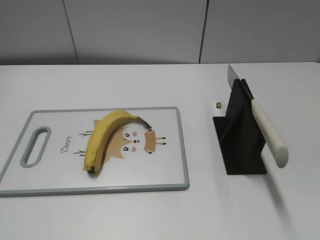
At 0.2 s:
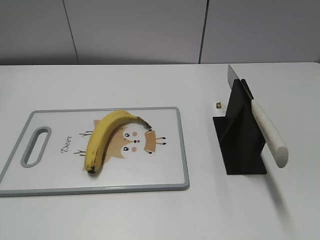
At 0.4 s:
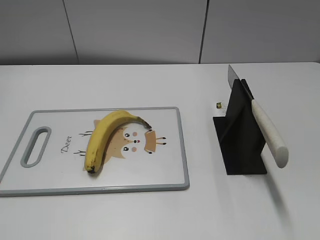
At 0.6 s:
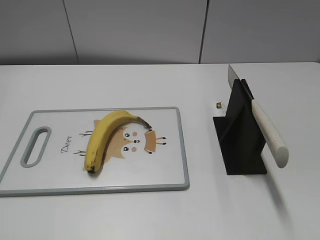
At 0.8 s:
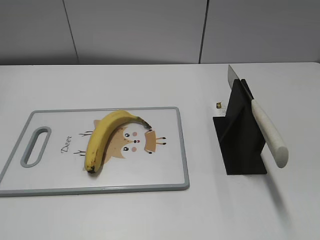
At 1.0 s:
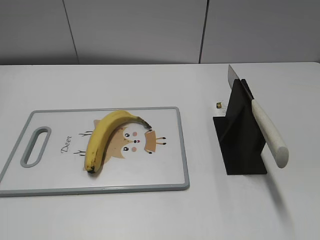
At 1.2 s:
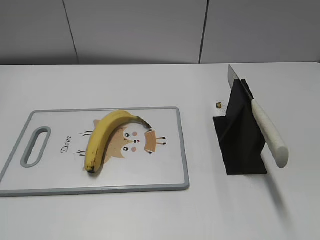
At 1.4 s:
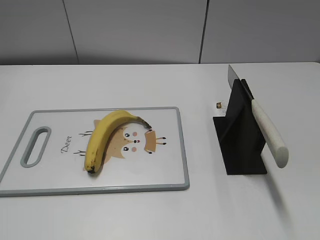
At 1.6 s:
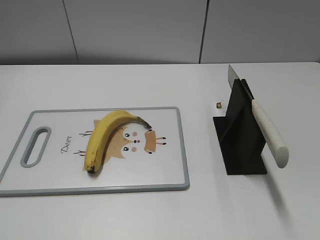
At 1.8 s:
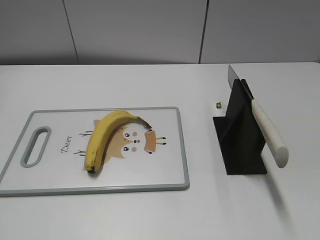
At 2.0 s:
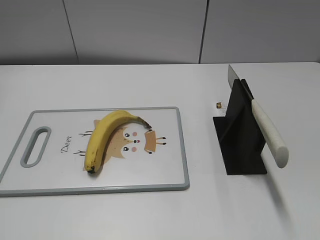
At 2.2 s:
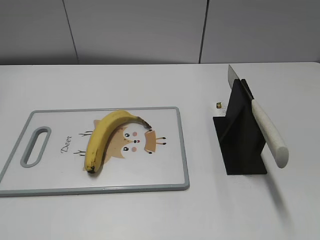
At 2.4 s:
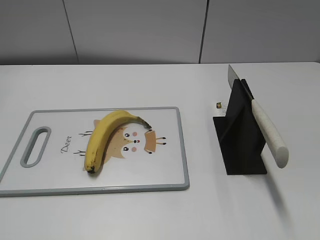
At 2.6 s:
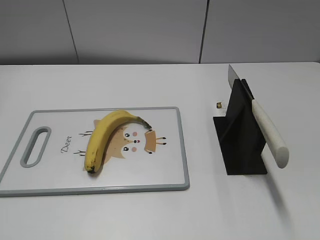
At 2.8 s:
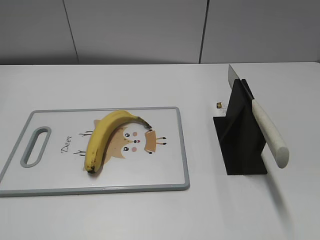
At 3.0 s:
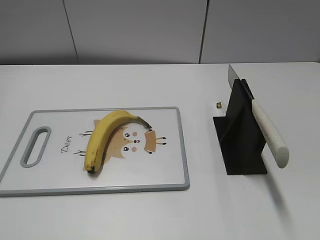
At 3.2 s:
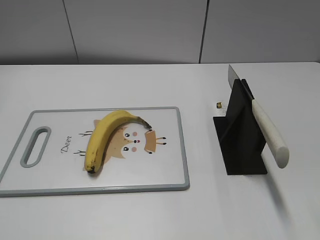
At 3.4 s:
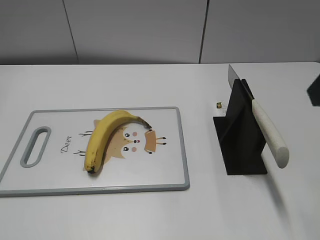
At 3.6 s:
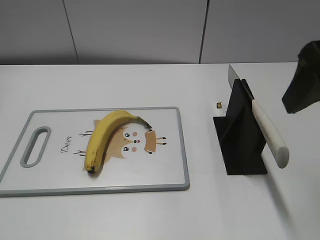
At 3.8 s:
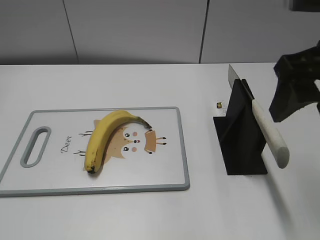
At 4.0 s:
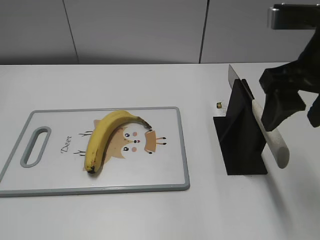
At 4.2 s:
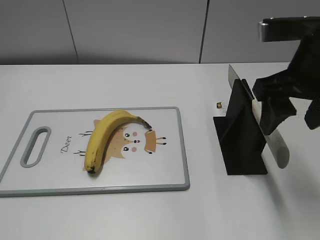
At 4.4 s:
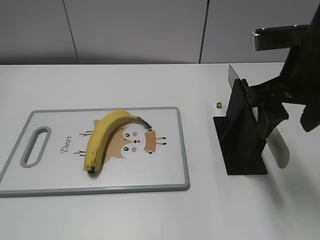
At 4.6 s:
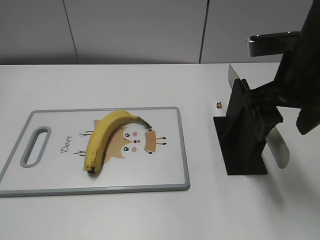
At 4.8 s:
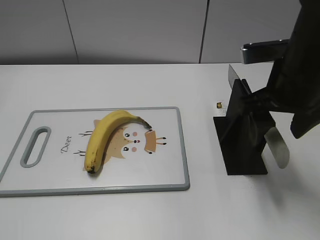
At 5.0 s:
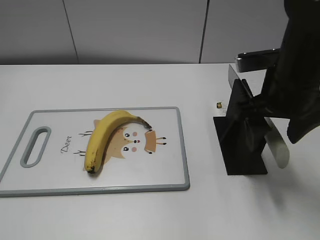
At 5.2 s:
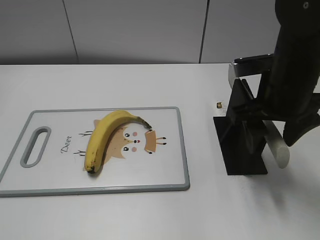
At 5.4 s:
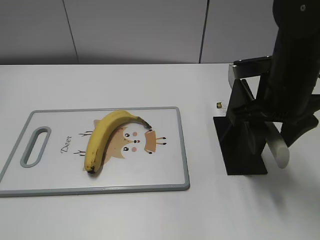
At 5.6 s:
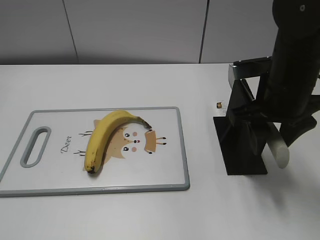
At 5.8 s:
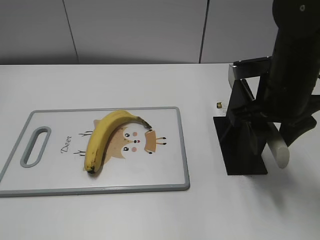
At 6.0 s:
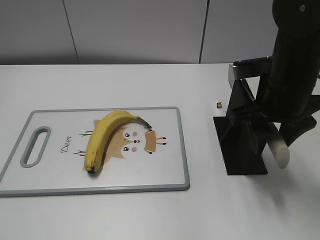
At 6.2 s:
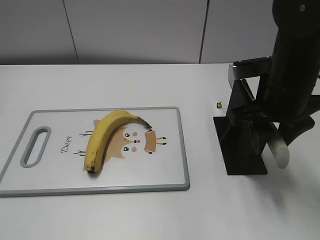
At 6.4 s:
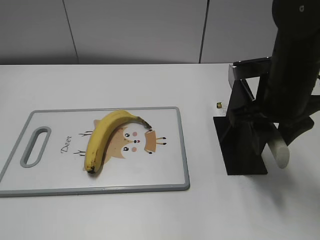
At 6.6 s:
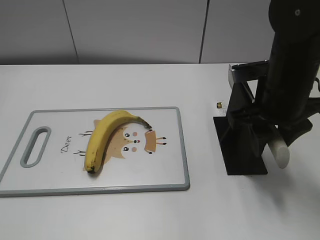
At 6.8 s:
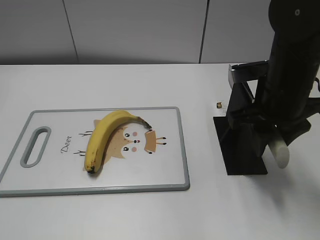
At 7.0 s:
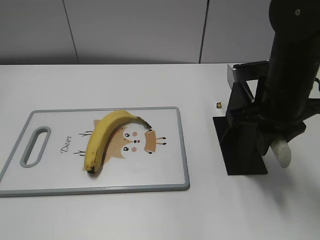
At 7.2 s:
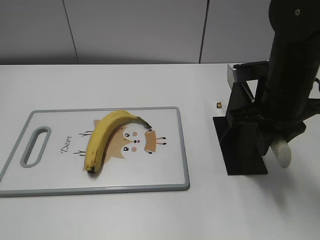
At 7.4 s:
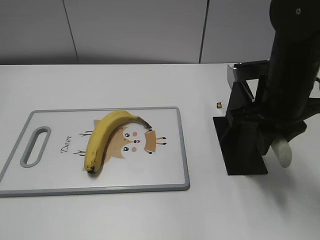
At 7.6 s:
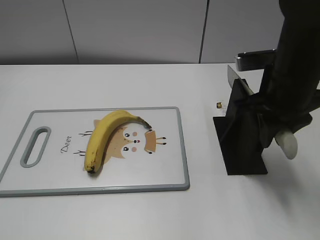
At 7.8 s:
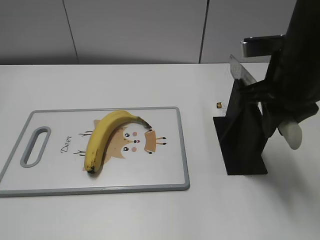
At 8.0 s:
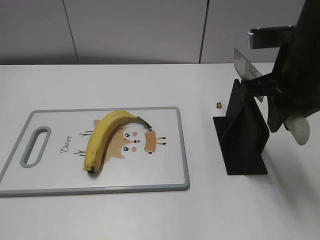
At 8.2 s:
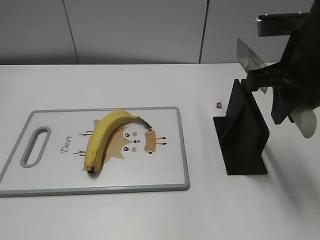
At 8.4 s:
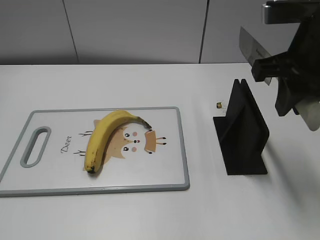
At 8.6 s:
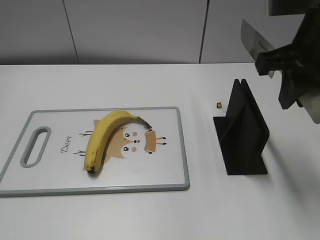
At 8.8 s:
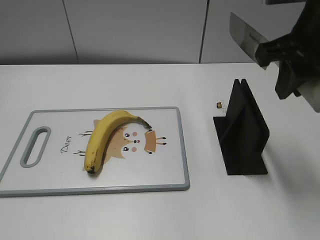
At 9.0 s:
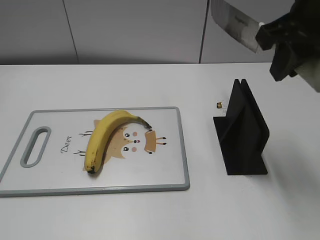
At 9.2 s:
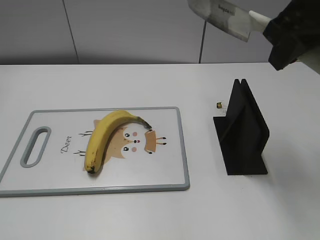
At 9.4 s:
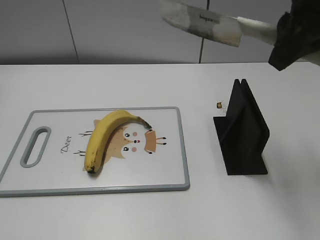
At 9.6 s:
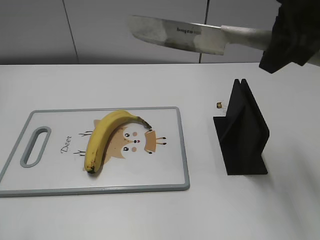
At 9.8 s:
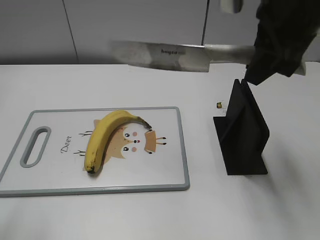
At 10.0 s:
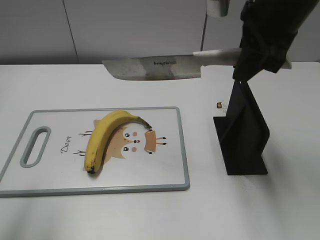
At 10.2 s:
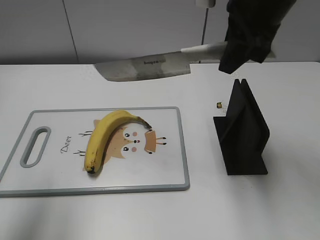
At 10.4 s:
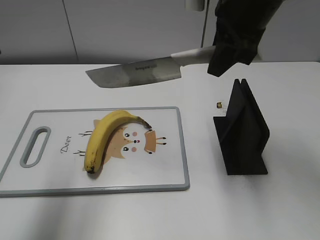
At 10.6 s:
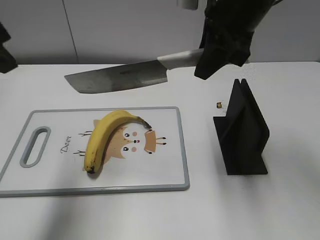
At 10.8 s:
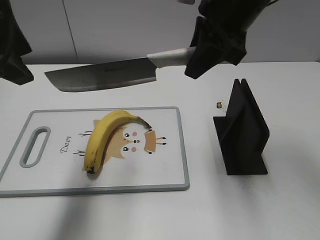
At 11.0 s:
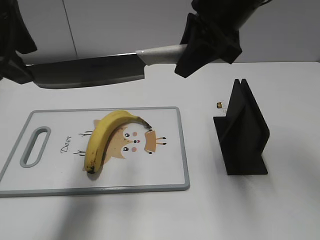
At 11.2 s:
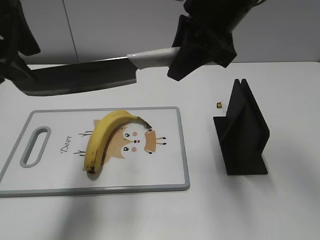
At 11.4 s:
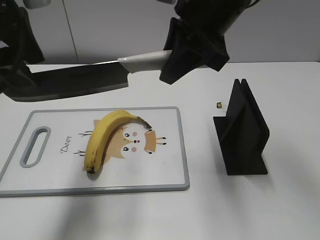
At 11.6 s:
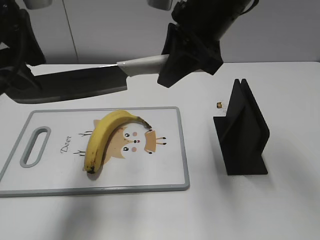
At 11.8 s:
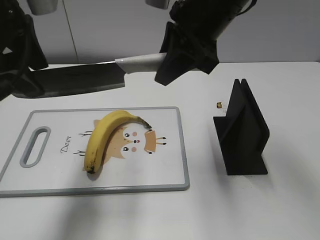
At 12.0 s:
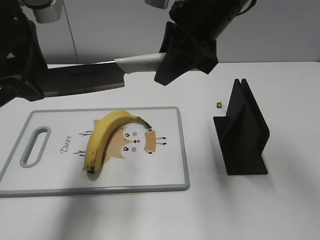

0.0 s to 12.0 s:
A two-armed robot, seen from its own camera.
Task of the whole recording: cut banana.
Step, 0.0 to 8.4 s: Grab the knife handle with your right hand.
3.0 to 4.4 s: The right gripper goes approximately 20 cm forward, downward and to the left.
4.4 to 6.0 s: The right gripper moves downward, roughly 5 cm, and closes.
6.0 to 7.6 s: The right gripper closes its fingers.
7.6 to 9.0 s: The right gripper goes about 10 cm upward.
9.0 to 10.4 s: The left gripper shifts roughly 25 cm forward and upward; the right gripper heads forward and to the left, covering roughly 10 cm.
10.4 to 12.0 s: The left gripper heads downward, to the right and forward, covering some 10 cm, while the right gripper heads to the left, covering roughly 5 cm.

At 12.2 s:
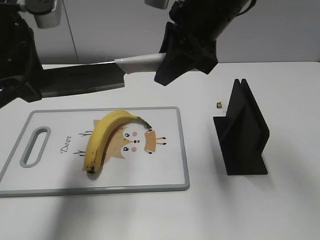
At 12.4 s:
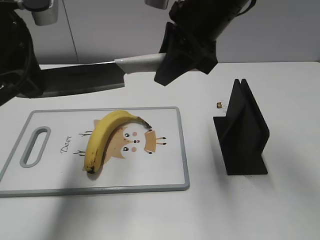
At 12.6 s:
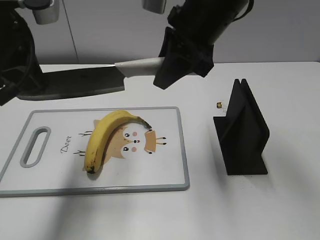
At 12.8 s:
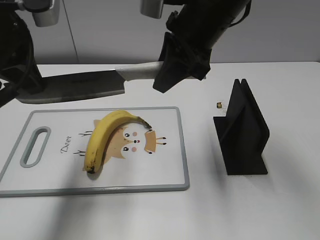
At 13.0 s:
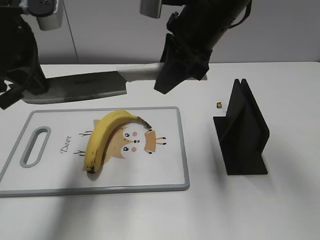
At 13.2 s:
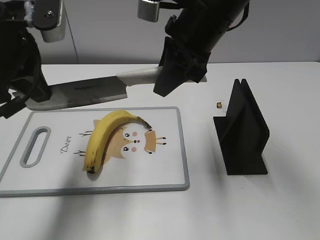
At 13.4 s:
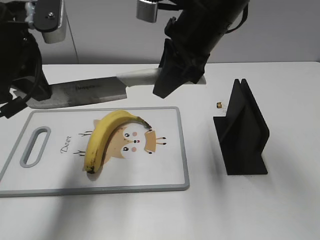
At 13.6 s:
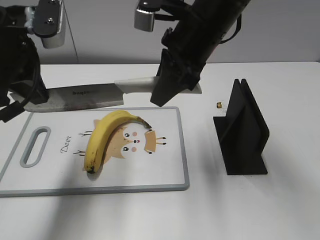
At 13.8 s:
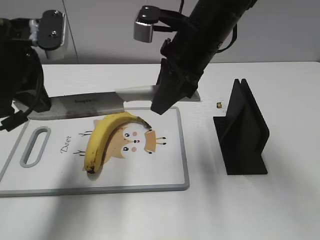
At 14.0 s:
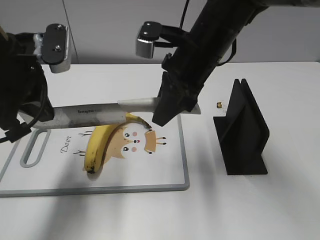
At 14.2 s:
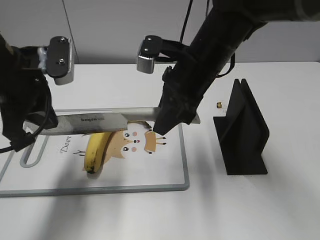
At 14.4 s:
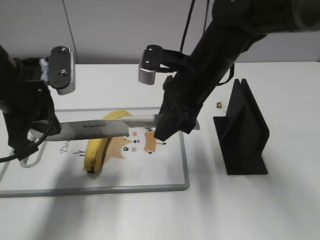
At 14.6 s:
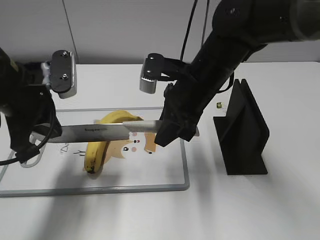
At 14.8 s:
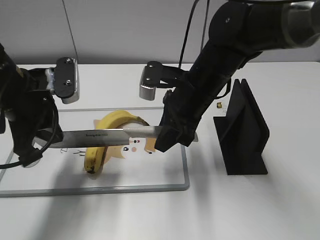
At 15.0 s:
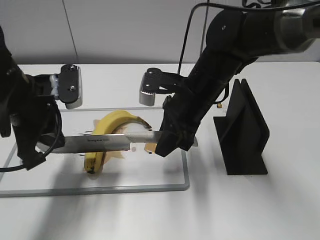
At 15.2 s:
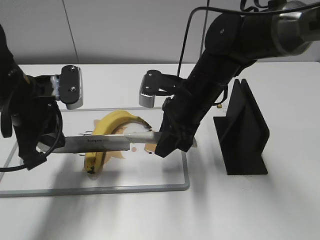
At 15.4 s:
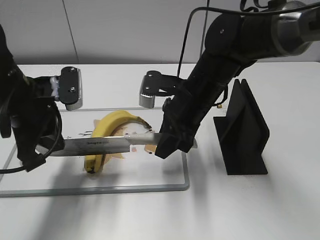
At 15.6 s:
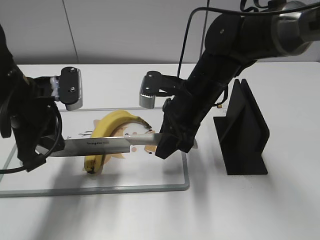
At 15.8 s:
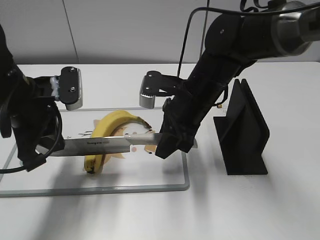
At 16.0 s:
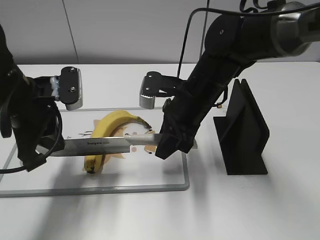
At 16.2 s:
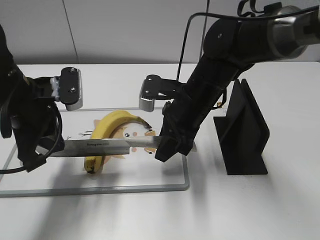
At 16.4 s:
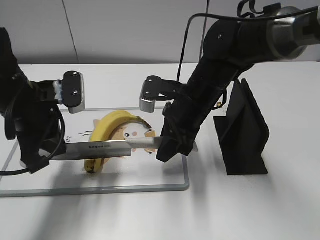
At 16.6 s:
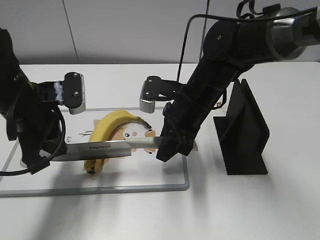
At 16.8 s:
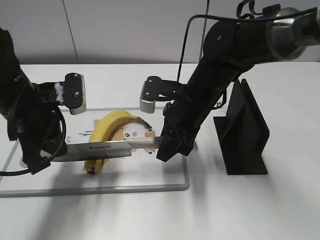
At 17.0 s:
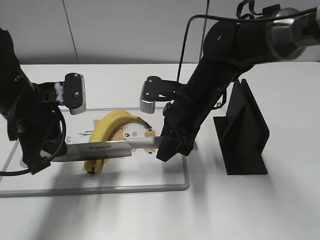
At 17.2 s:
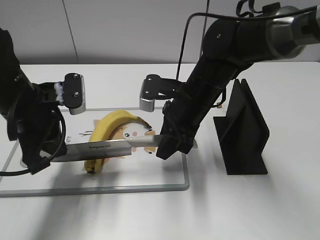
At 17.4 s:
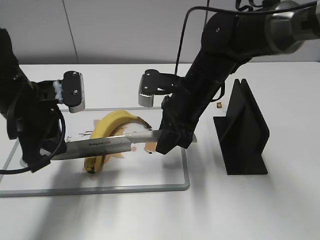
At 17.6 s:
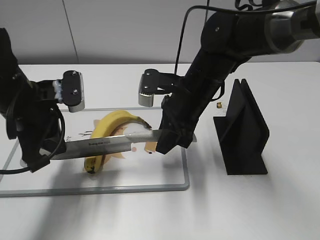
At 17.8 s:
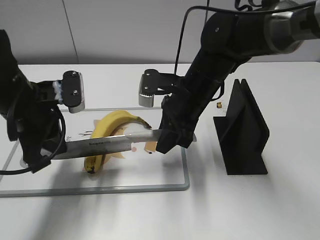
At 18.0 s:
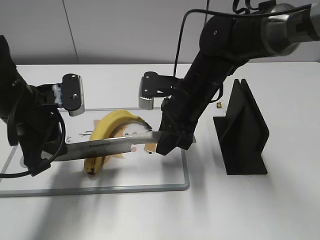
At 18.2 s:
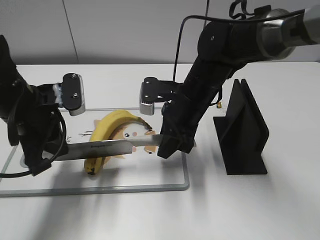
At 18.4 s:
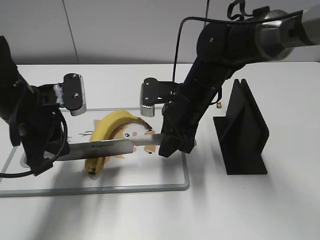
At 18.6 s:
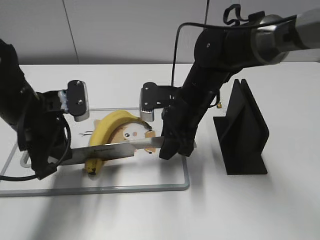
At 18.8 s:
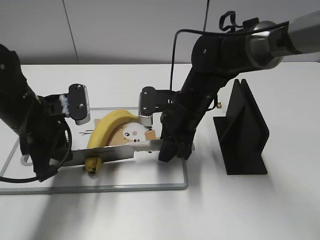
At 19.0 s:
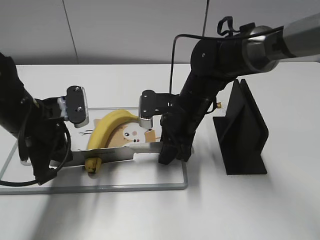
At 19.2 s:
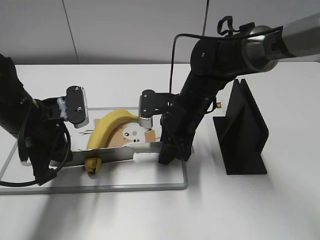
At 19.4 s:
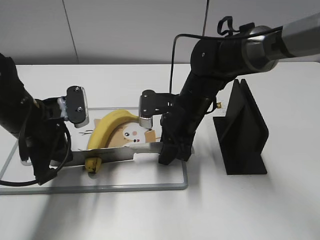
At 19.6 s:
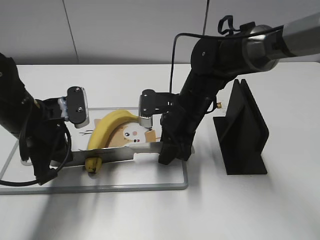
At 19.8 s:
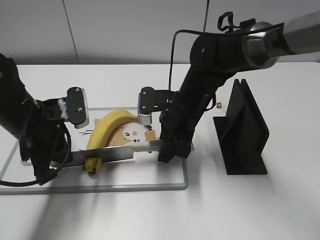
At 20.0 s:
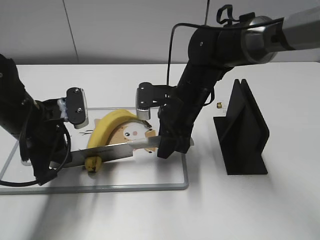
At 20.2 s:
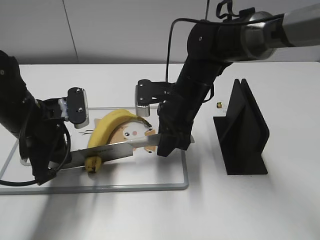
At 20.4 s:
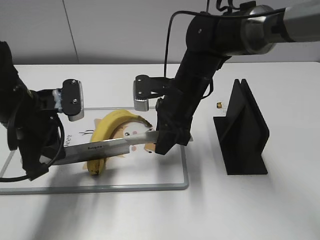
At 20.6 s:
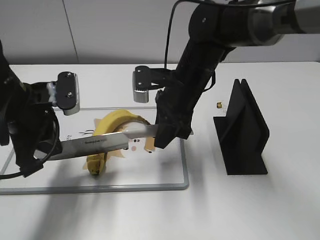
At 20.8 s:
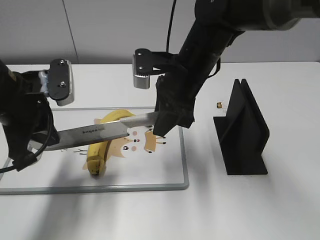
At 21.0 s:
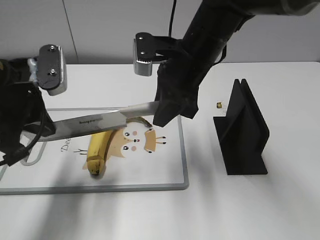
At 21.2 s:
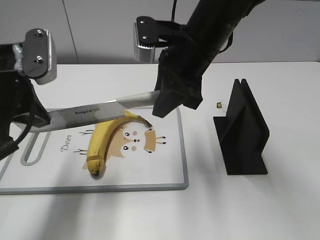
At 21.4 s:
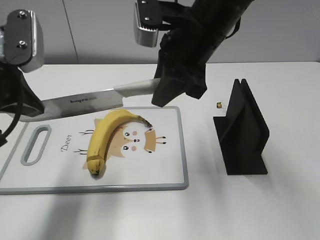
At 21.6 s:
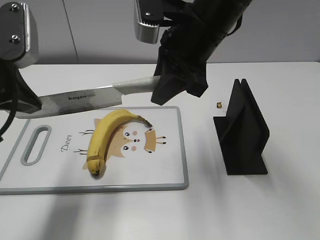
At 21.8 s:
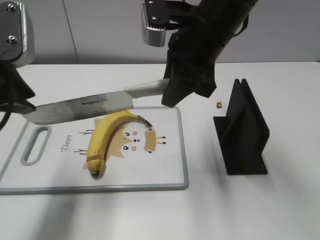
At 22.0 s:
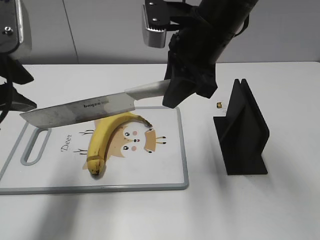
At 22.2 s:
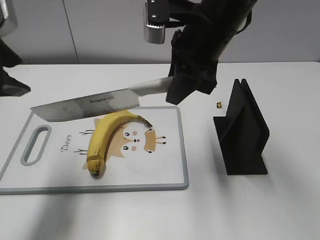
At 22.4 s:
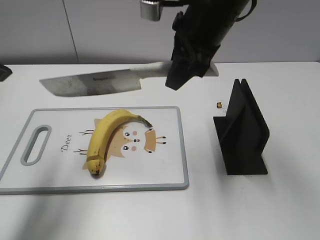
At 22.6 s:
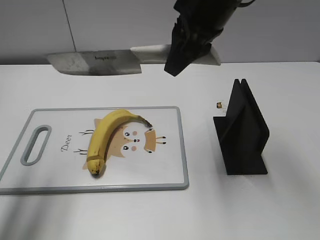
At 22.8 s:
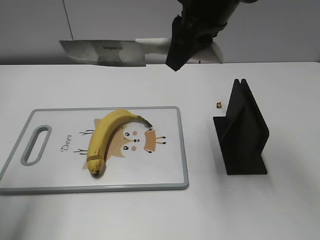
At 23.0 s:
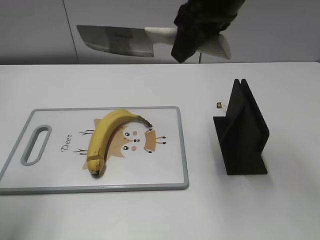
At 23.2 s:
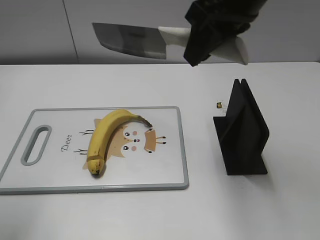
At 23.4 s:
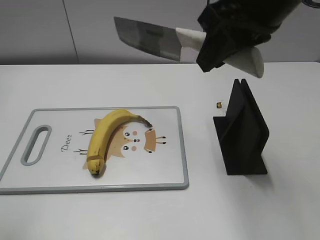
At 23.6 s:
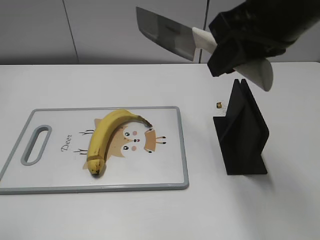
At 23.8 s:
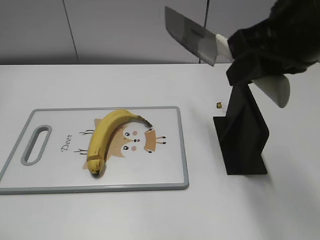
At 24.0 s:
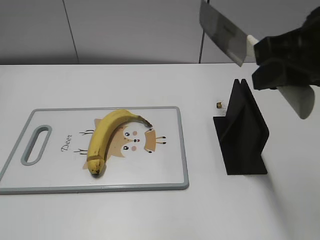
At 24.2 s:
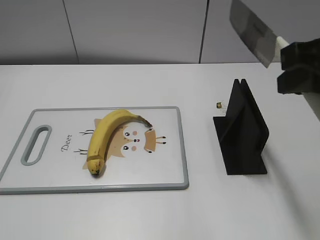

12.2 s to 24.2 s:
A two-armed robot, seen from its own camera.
Task of the whole recording: cut banana.
Step, 12.2 to 15.6 s: Lift the knife with your right hand.
Step, 16.0 to 23.6 s: Cut the banana with your right hand.
12.2 to 13.8 s: The right gripper travels downward by some 5 cm. Meanwhile the left gripper closes up.
13.8 to 15.2 s: The grippers both shift downward by some 10 cm.
15.2 to 16.6 s: The two grippers keep their place.
16.6 to 19.8 s: There are only small adjustments of the grippers.
19.8 to 21.2 s: The two grippers go some 10 cm upward.
21.2 to 22.6 s: The right gripper travels upward by roughly 10 cm, while the left gripper heads upward and to the left, covering approximately 10 cm, and opens.
22.6 to 24.2 s: The right gripper moves backward and to the right, approximately 20 cm, while the left gripper moves backward, some 20 cm.
